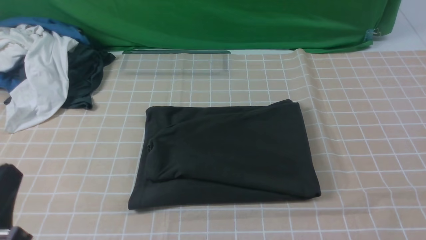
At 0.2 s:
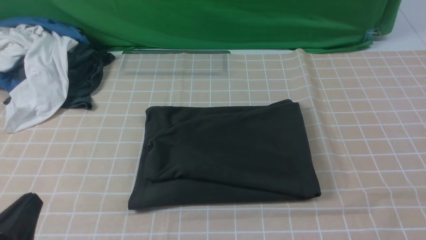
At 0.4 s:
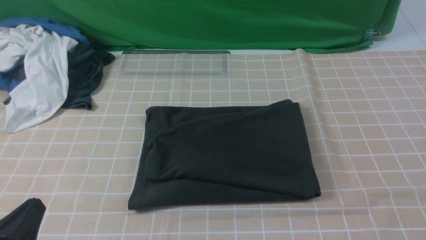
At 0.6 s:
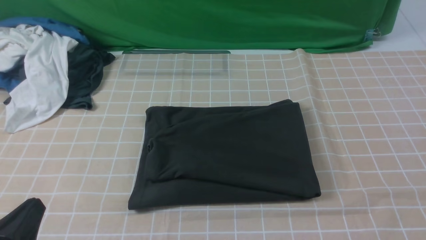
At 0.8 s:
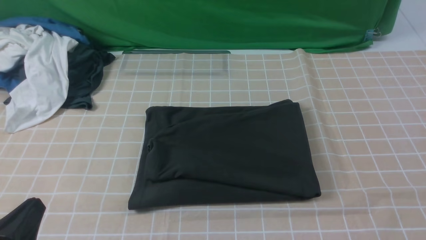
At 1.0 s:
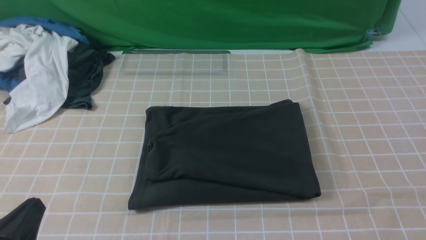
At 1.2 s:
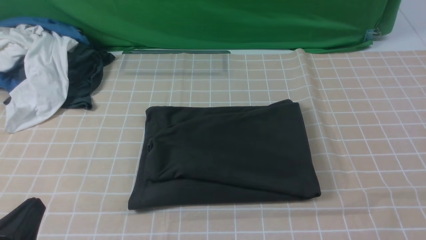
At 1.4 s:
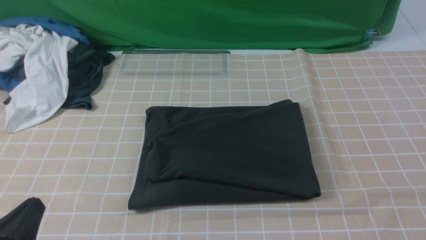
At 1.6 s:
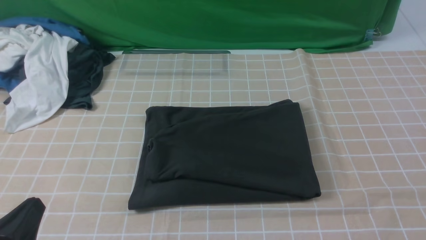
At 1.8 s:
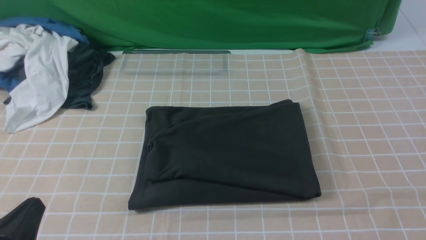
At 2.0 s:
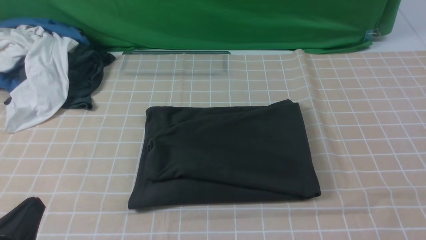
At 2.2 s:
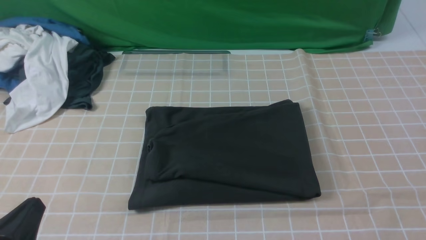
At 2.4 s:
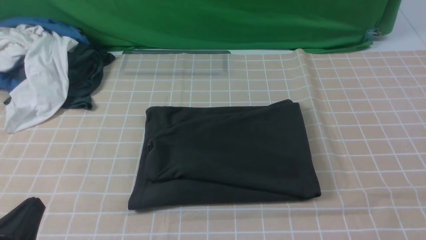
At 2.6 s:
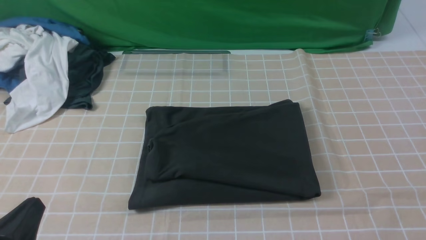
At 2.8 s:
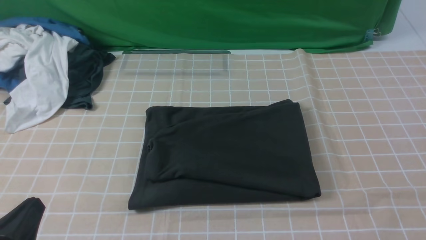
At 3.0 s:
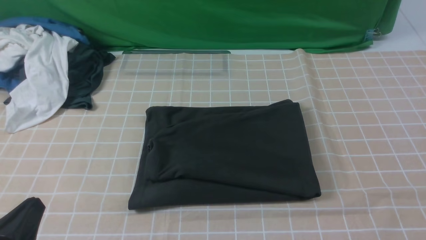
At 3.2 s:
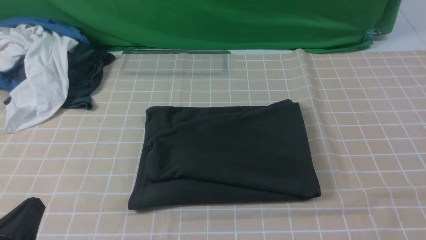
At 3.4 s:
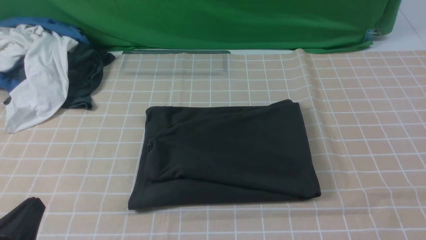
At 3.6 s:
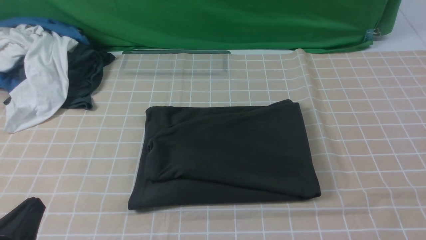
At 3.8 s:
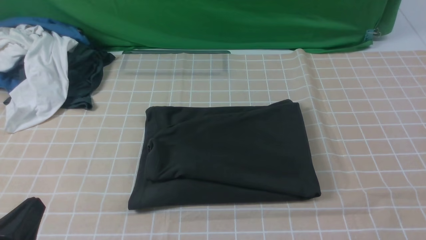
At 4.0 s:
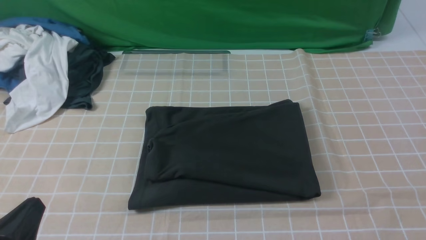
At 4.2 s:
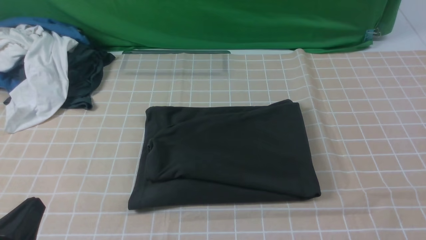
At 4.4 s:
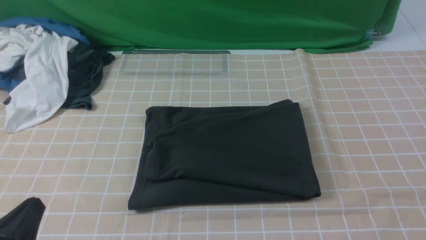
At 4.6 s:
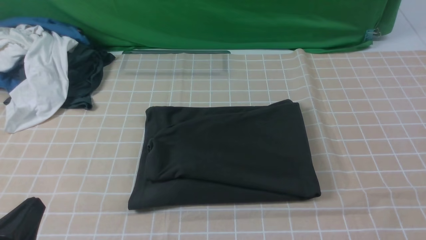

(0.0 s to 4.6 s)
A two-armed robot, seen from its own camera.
3.0 s - 4.6 s: Both grippers stay put.

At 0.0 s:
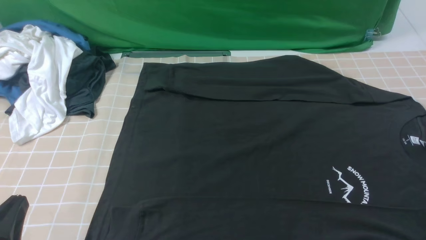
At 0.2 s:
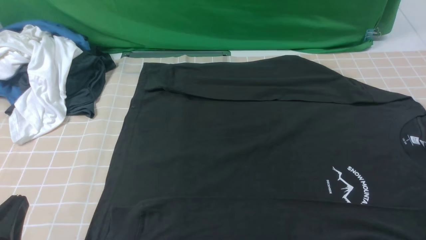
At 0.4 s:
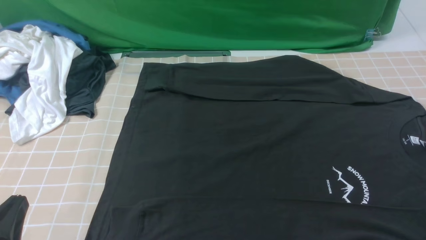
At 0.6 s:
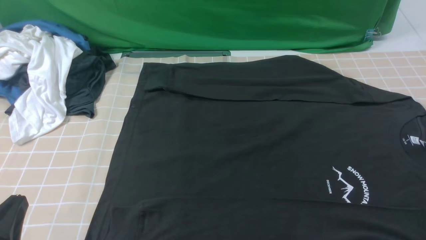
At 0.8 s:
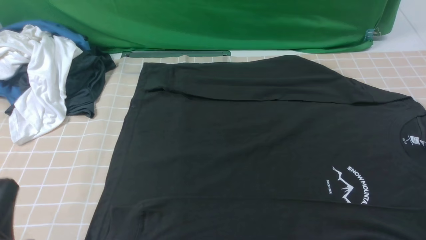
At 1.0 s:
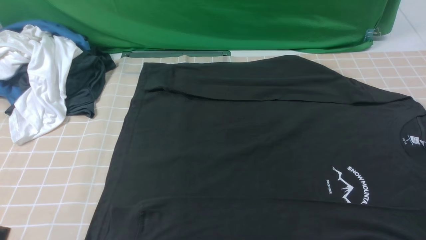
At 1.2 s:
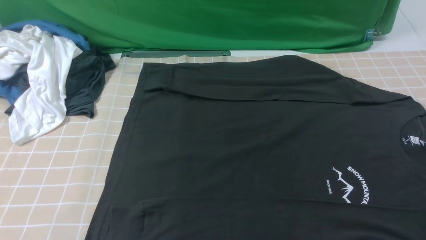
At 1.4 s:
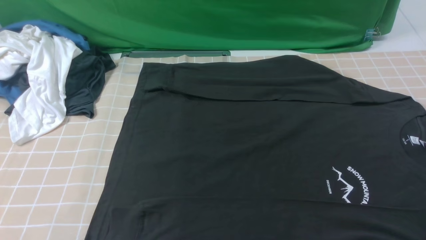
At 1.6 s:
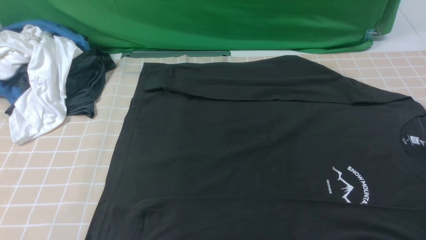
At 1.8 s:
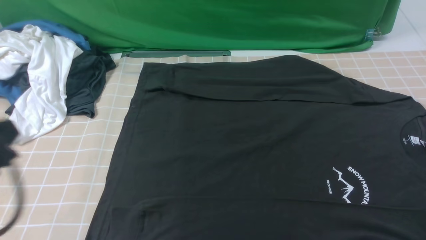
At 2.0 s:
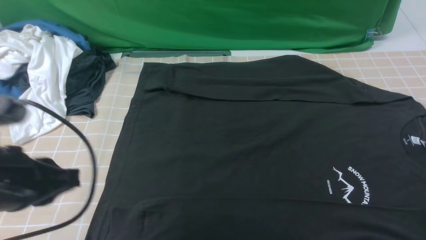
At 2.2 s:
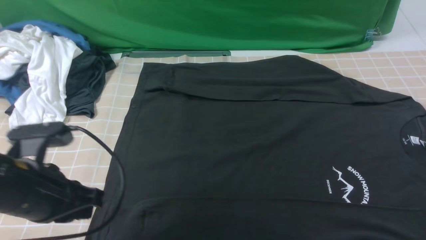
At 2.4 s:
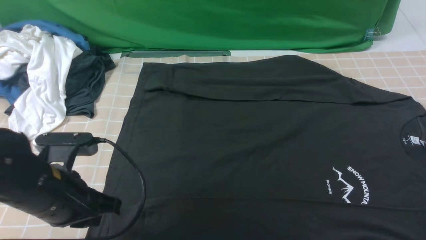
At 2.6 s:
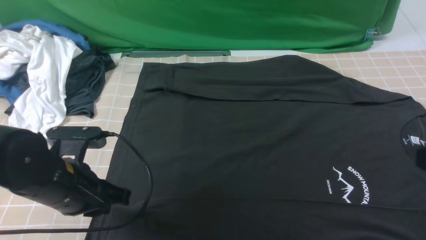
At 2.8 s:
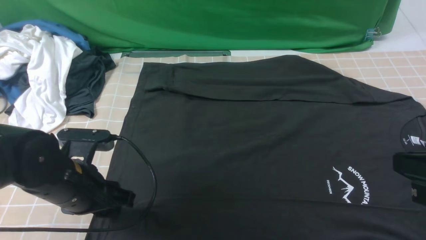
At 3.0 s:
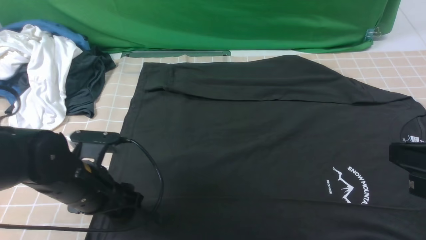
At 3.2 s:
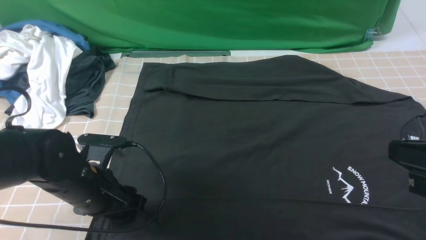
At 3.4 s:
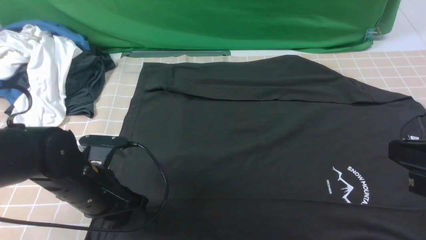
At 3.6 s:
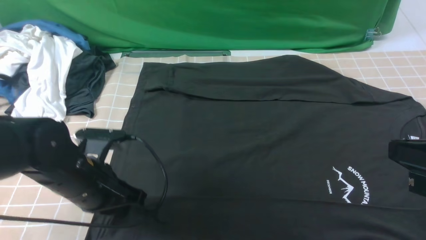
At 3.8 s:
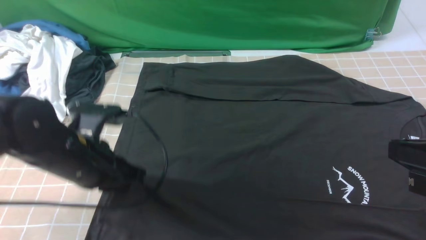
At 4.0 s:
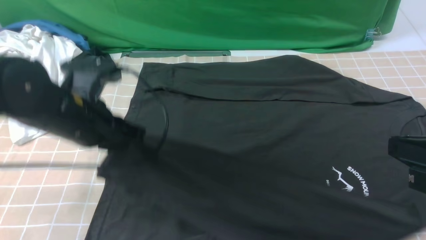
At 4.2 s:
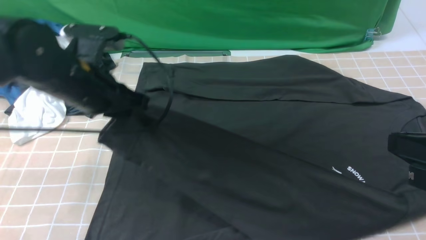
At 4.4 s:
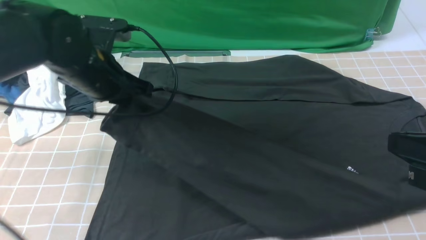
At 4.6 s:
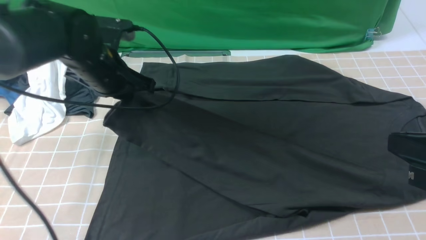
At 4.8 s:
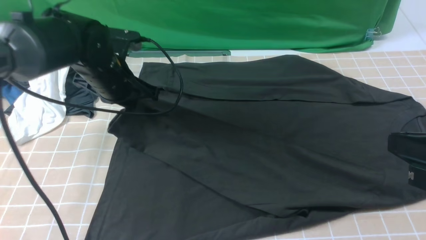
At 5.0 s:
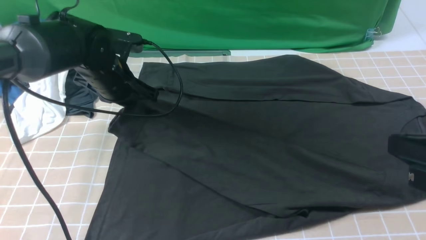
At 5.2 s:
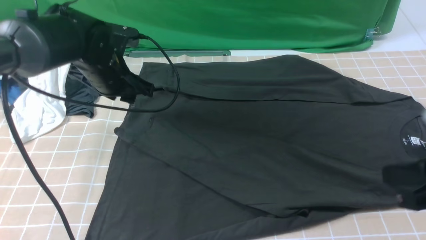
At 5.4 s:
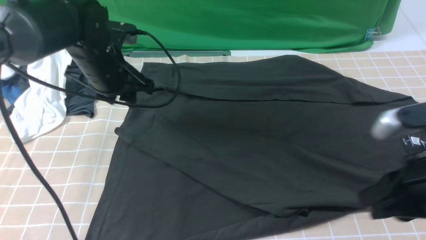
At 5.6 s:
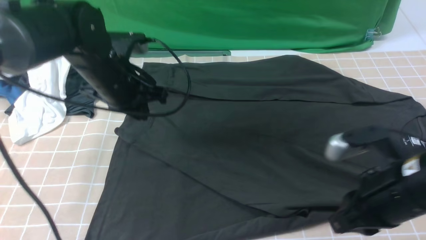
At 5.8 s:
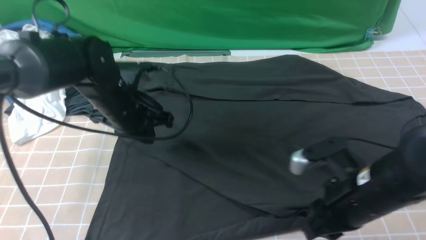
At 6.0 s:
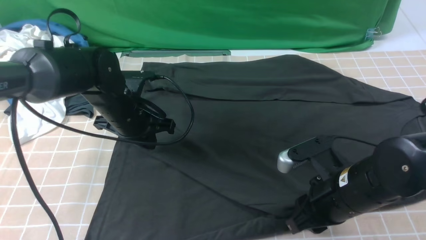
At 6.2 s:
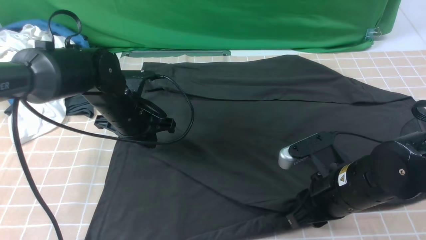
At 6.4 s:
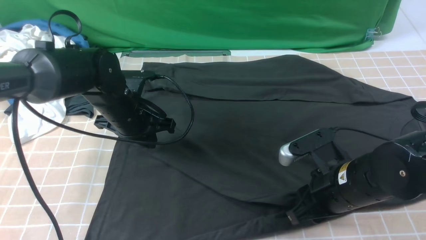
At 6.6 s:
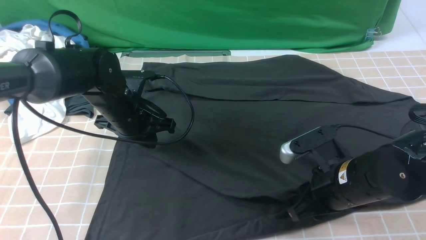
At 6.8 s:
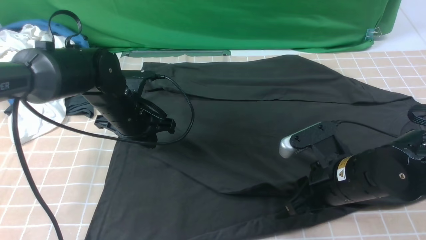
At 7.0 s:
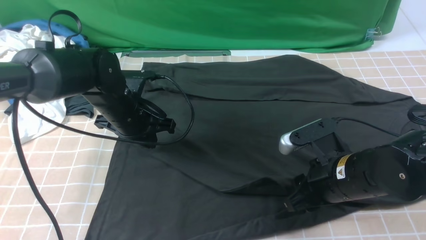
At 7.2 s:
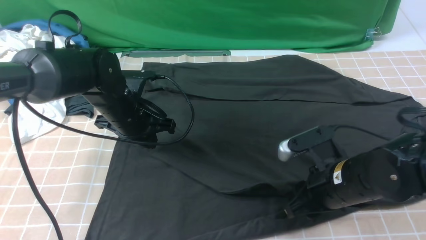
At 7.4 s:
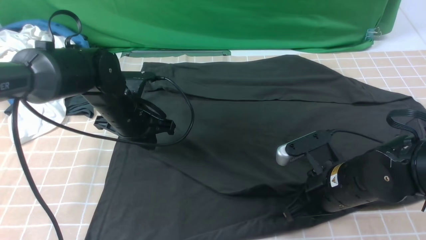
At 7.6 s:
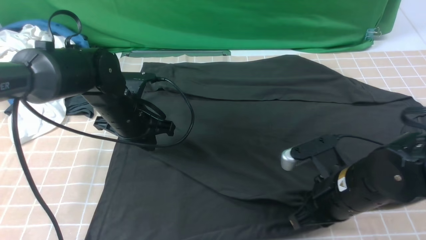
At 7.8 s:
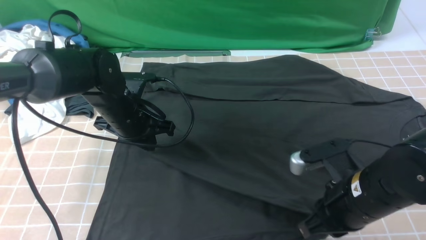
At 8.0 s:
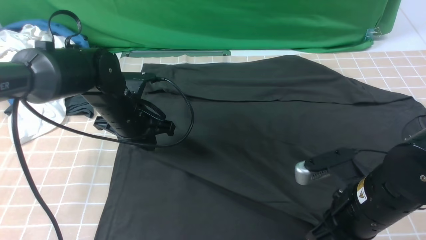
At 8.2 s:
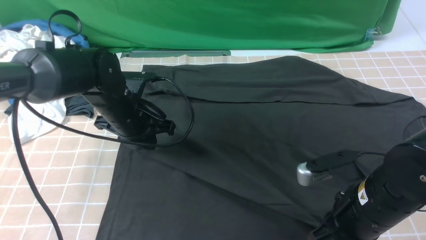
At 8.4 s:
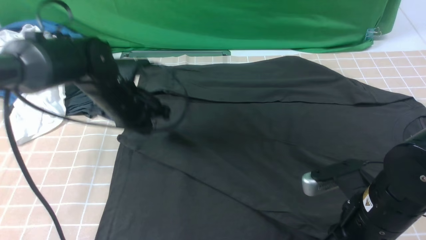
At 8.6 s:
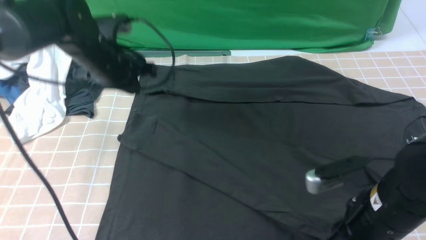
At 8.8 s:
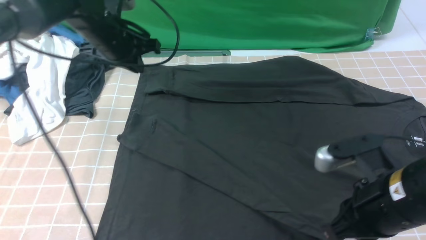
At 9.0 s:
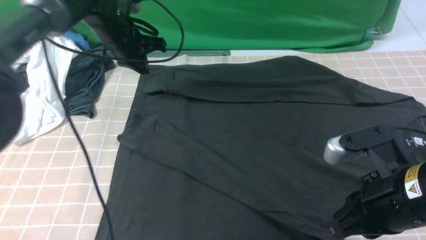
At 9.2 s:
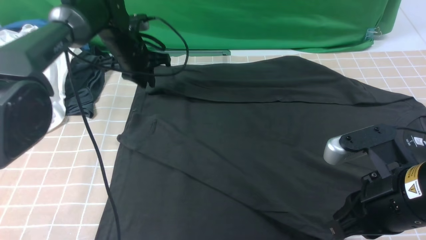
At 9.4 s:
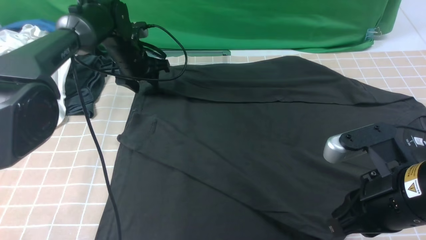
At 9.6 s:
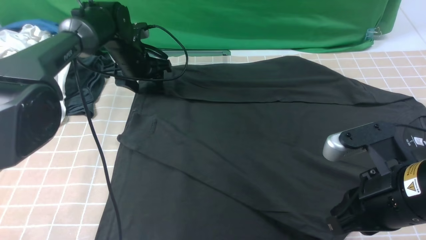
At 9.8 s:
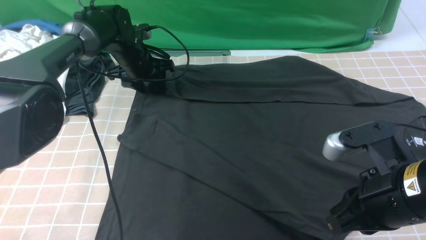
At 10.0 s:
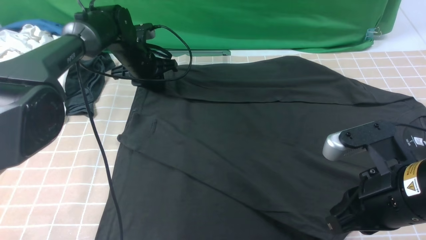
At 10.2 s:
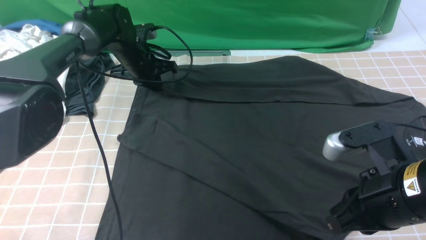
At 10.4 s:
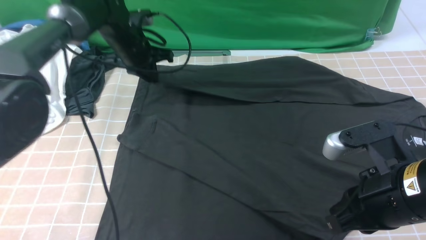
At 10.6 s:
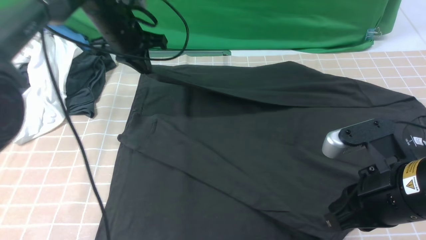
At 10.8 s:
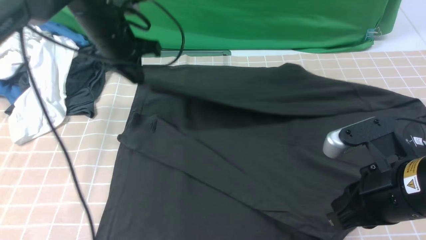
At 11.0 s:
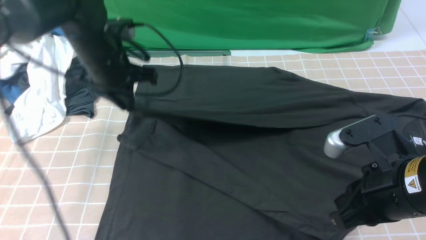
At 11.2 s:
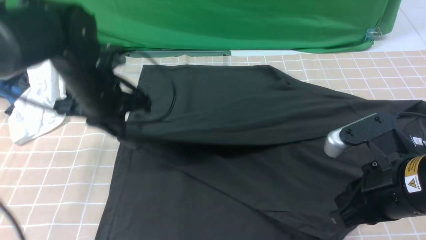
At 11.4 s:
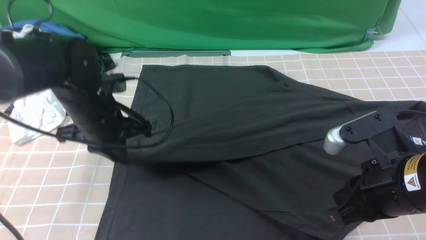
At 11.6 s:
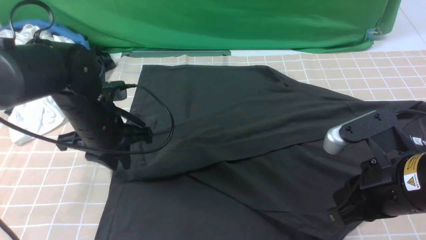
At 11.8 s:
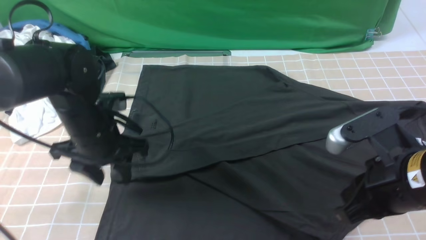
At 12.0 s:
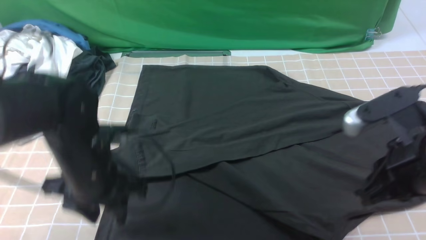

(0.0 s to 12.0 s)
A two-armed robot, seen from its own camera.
Step, 0.0 s - 3.4 s: use the left arm to clamp the cuff closest to it.
Step, 3.6 s - 5.0 s: use the left arm to drag and place the cuff at the centered position on the left edge of the fabric.
Step, 5.4 s - 10.0 s: use the left arm to clamp the cuff farthest from it.
Step, 10.2 s - 11.6 s: use the left arm to drag and drop the cuff onto the cuff closest to the left arm.
0.0 s - 1.6 s: The left gripper heads upward, covering roughly 10 cm.
1.6 s - 3.0 s: The left gripper shifts approximately 20 cm forward, downward and to the right, and opens up; the right gripper is displaced upward, forward and to the left by roughly 15 cm, and closes up.
3.0 s - 4.4 s: The left gripper travels forward and upward by some 15 cm, and closes its fingers.
4.4 s - 6.0 s: The left gripper goes roughly 10 cm downward, and opens and closes again. The right gripper is displaced downward, to the left and forward by roughly 20 cm, and opens.
6.0 s - 7.6 s: The right gripper closes up.
7.6 s - 9.0 s: The right gripper is displaced upward by about 5 cm; the left gripper is displaced forward by some 15 cm.
9.0 s - 10.4 s: The left gripper opens, then closes again.
10.4 s - 12.0 s: The left gripper goes approximately 25 cm backward, and opens its fingers.
